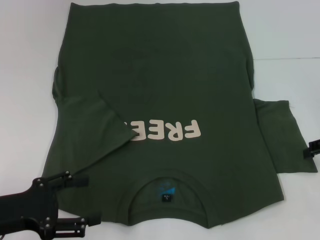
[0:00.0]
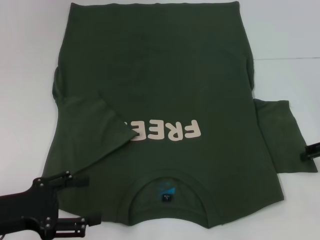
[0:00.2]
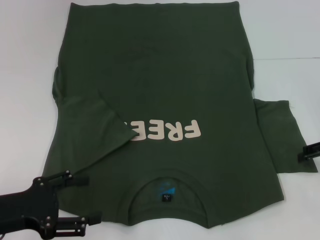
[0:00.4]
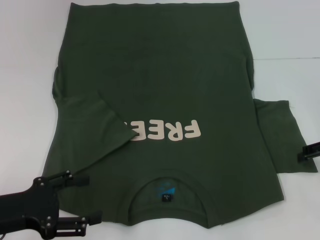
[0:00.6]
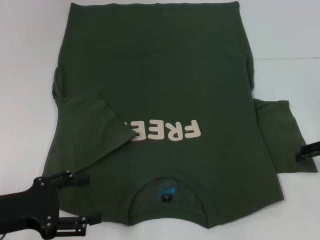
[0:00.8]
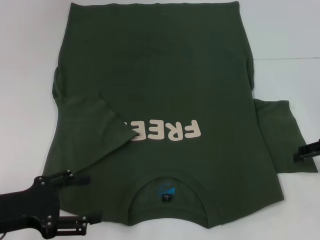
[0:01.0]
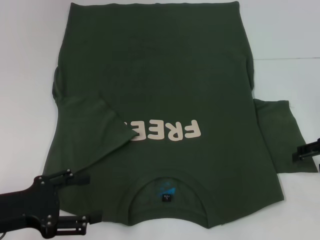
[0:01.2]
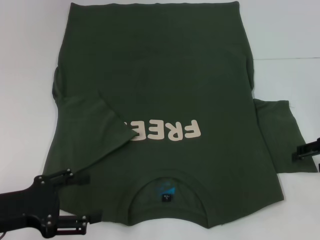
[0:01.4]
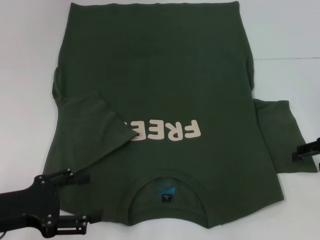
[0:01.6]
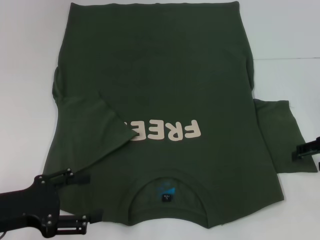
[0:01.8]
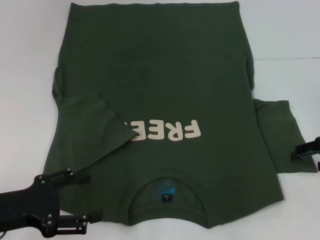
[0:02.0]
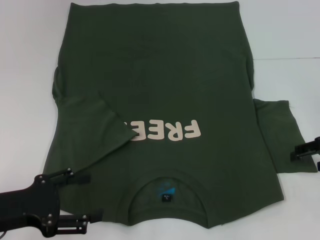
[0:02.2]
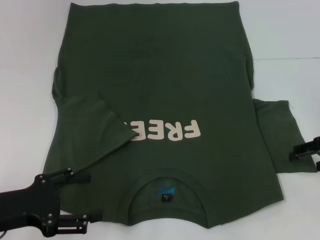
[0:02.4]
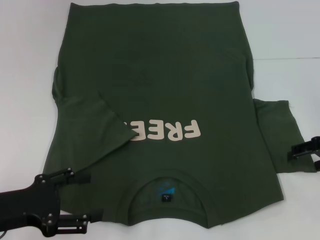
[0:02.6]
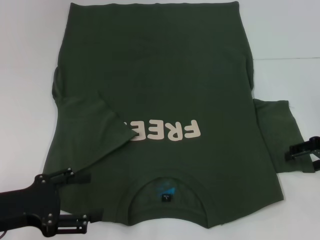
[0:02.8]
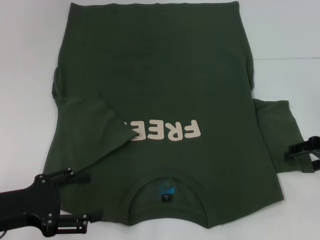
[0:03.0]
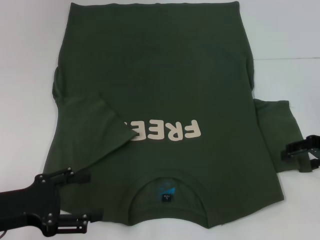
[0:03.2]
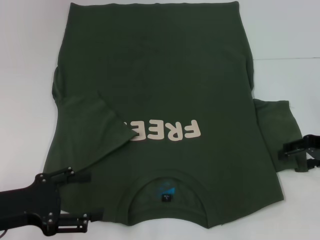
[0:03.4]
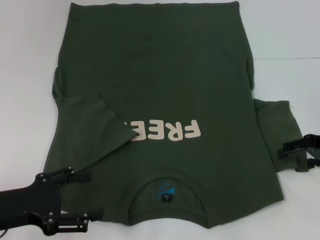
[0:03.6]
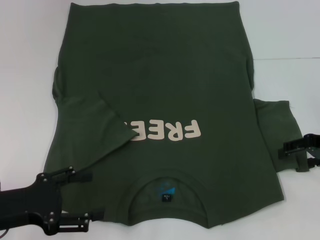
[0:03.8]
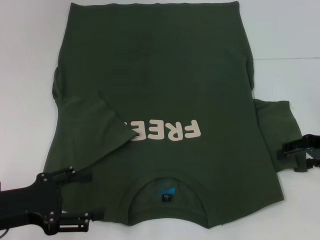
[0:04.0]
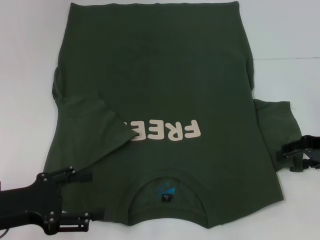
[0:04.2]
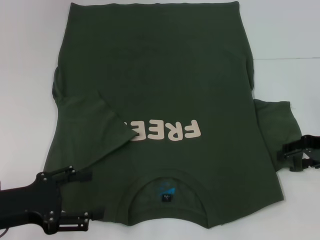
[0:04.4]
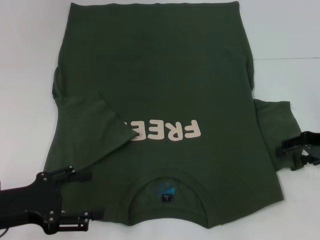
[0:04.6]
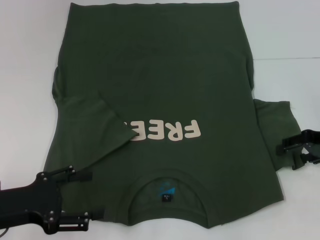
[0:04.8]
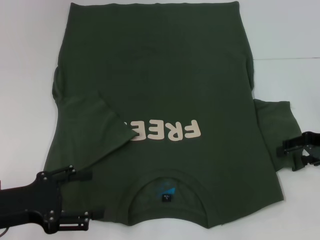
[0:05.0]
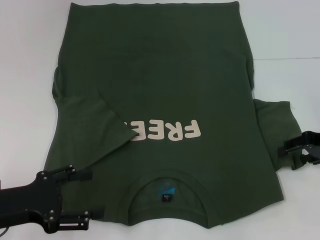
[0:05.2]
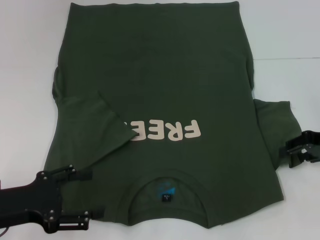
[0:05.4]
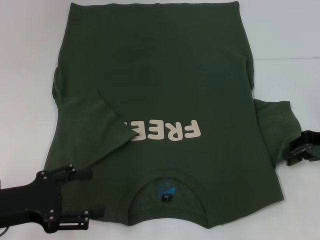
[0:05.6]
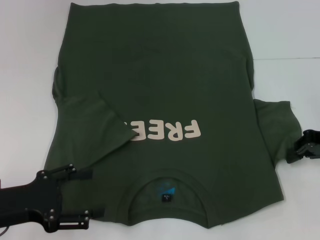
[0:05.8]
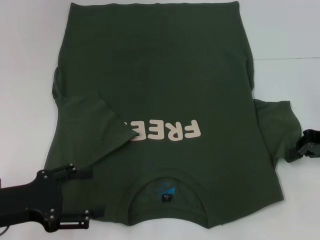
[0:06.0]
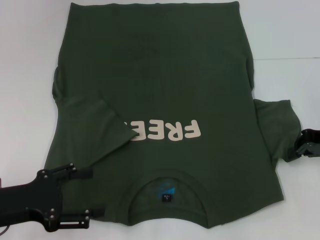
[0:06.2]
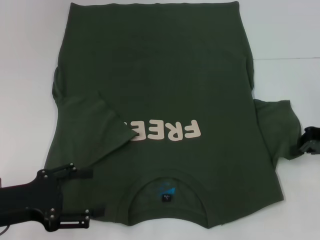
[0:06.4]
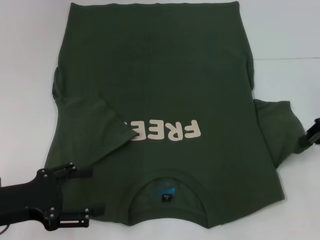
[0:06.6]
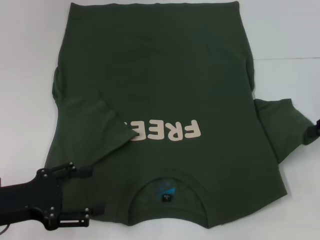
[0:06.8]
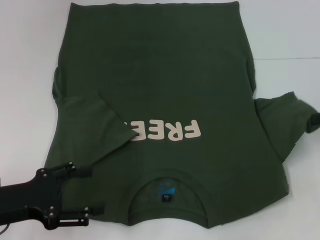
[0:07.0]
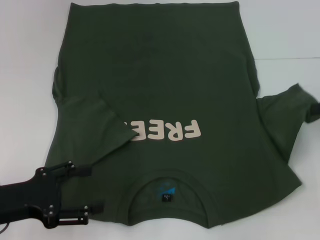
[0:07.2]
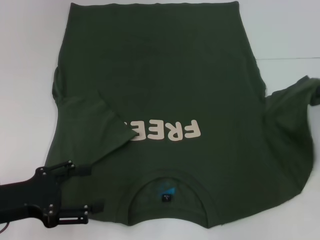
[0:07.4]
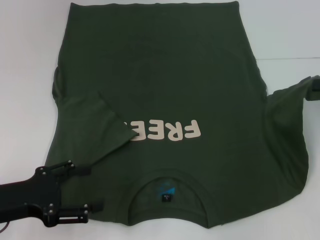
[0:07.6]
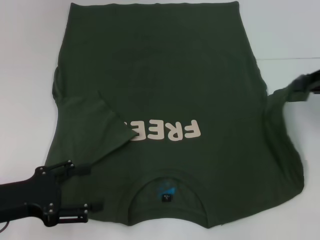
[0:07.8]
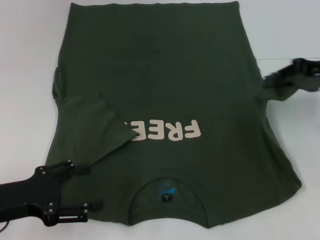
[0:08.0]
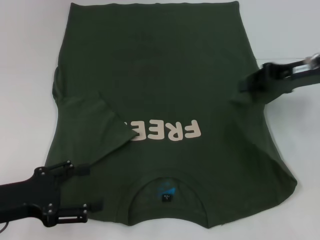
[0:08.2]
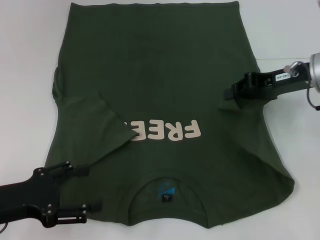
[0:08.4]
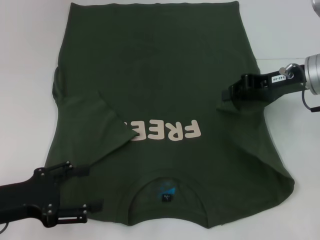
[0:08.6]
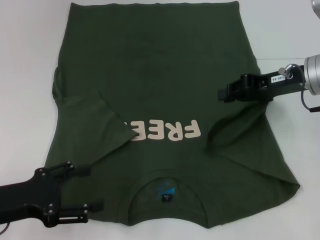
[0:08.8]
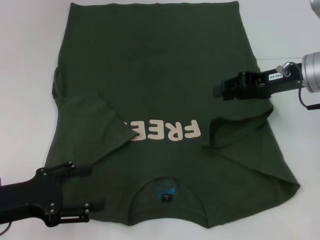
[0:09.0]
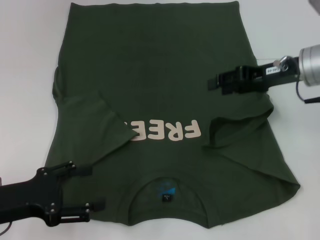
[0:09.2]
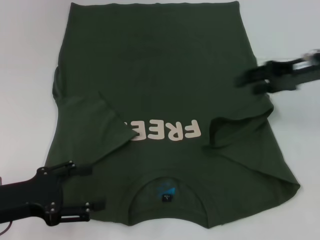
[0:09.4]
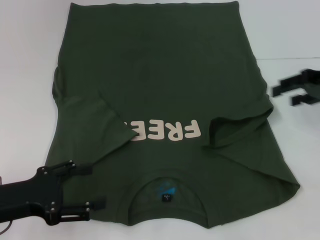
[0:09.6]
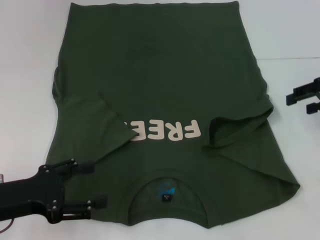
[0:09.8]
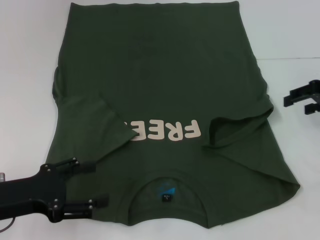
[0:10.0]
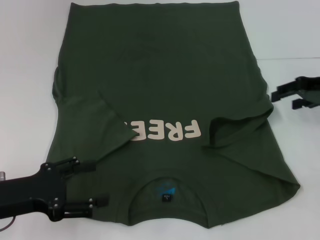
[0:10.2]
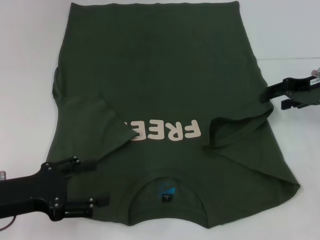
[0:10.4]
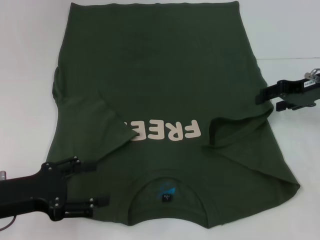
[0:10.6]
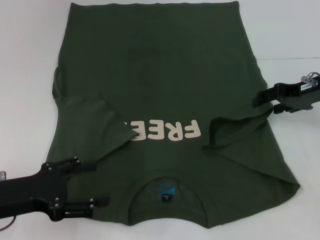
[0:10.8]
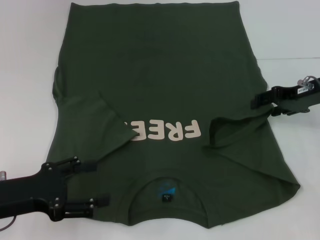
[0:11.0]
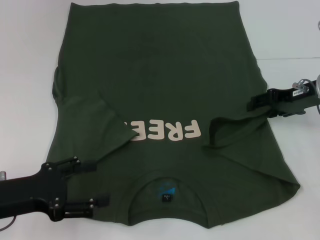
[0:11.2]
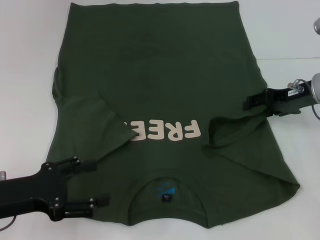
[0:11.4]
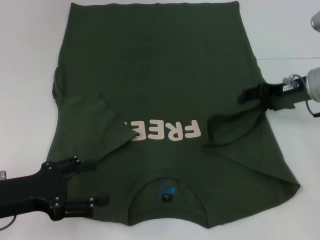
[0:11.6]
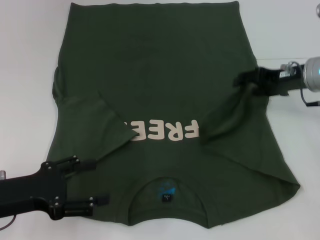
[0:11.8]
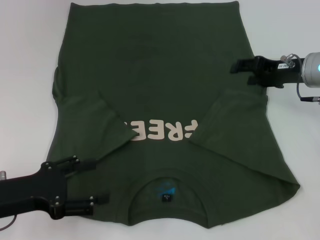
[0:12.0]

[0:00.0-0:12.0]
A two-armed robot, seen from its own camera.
Step, 0:00.0 to 0:09.2: Fold the bottom right sleeve with your right hand.
0:00.0 to 0:01.6: There are only small adjustments of the grippers.
0:01.6 to 0:03.0: The two grippers keep their place.
0:03.0 to 0:04.4: The two grippers keep their place.
0:04.4 to 0:06.0: The right gripper closes up.
0:06.0 to 0:07.6: The right gripper heads upward, covering some 10 cm.
0:07.6 to 0:09.0: The right gripper shifts some 15 cm to the left.
0:09.0 to 0:10.4: The right gripper heads to the right, covering approximately 5 cm, and opens its fingers.
0:10.4 to 0:12.0: The grippers move only a little.

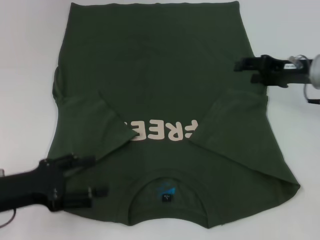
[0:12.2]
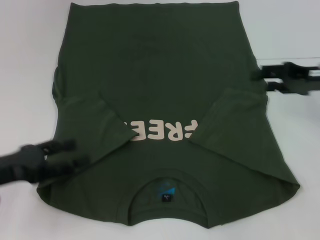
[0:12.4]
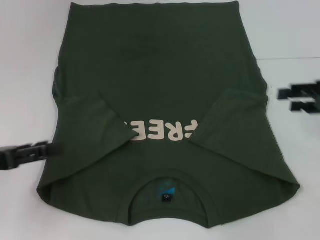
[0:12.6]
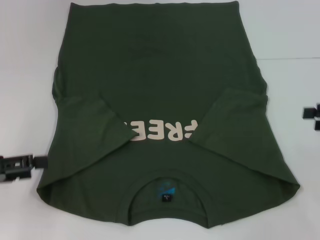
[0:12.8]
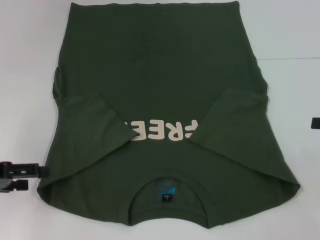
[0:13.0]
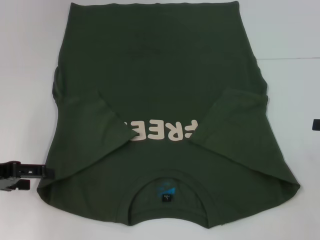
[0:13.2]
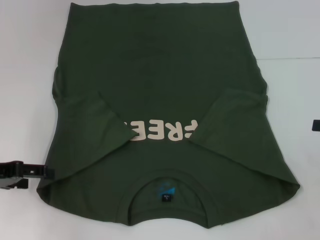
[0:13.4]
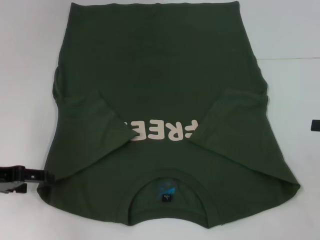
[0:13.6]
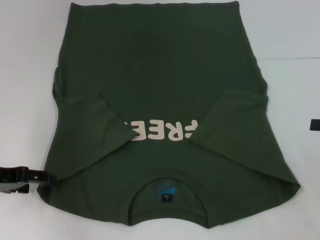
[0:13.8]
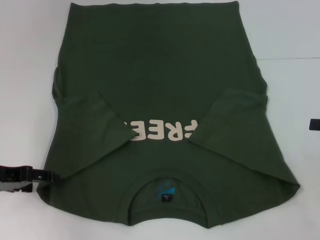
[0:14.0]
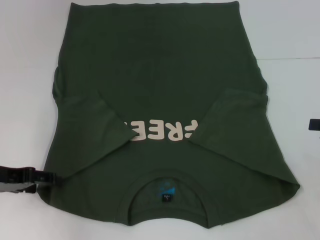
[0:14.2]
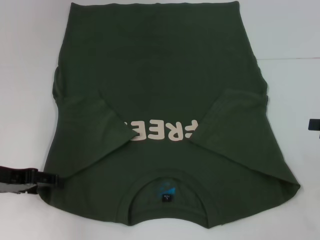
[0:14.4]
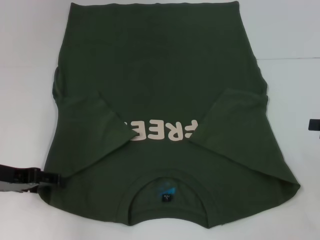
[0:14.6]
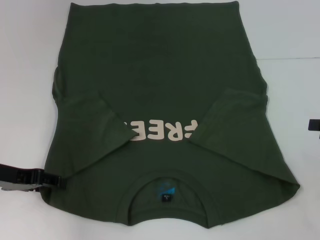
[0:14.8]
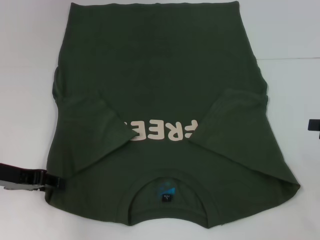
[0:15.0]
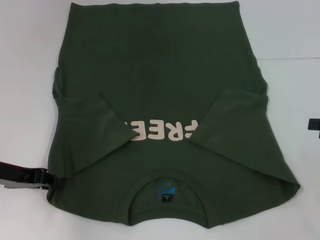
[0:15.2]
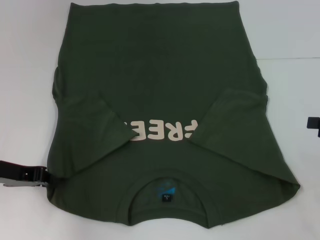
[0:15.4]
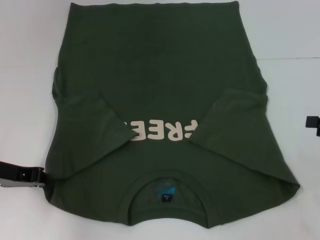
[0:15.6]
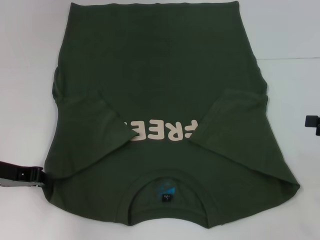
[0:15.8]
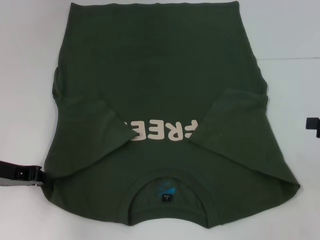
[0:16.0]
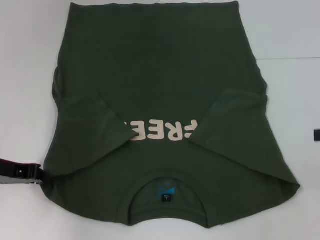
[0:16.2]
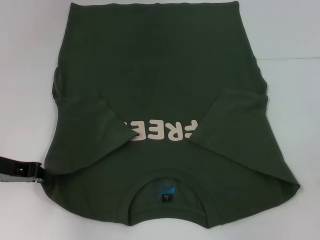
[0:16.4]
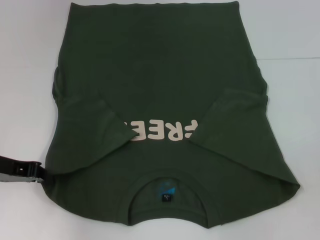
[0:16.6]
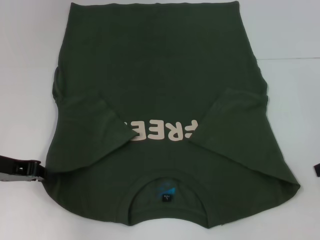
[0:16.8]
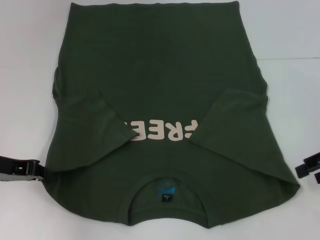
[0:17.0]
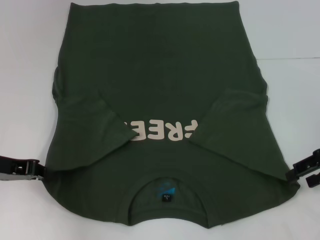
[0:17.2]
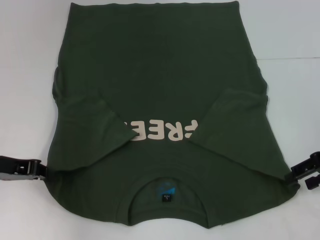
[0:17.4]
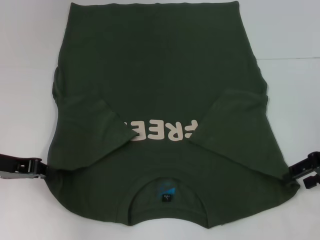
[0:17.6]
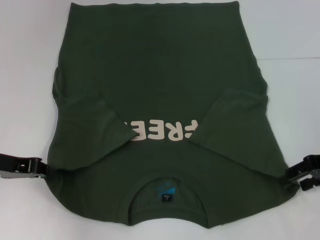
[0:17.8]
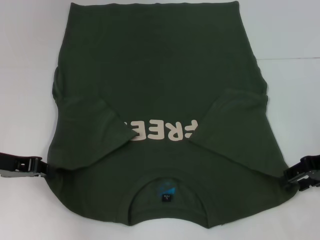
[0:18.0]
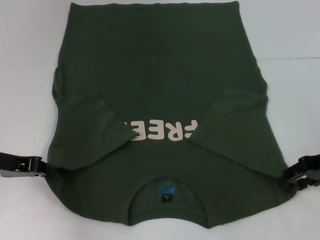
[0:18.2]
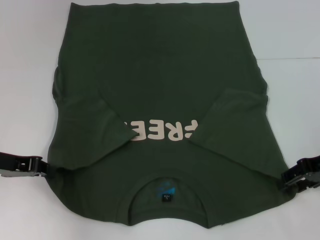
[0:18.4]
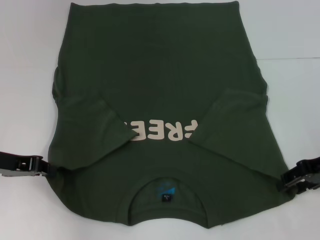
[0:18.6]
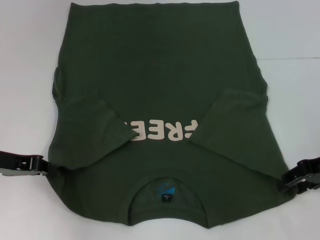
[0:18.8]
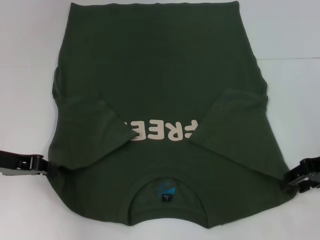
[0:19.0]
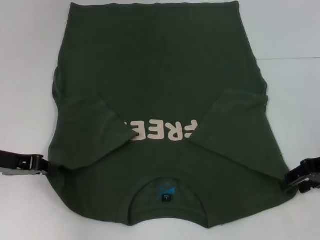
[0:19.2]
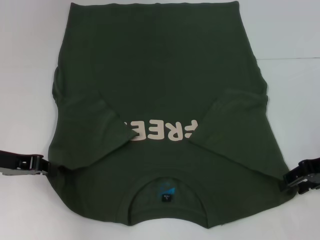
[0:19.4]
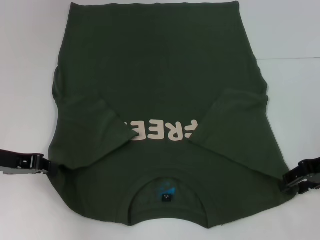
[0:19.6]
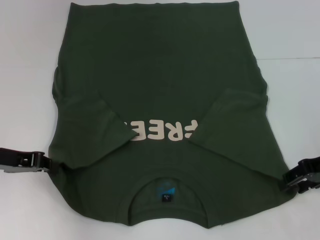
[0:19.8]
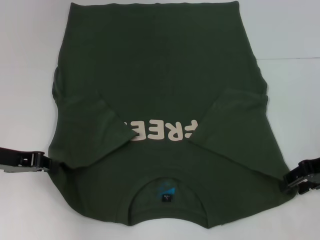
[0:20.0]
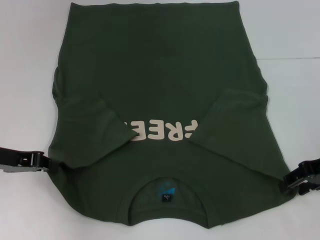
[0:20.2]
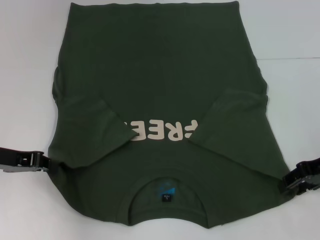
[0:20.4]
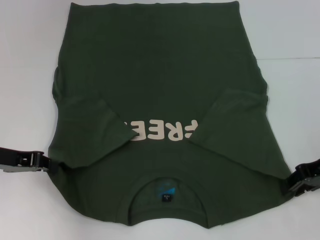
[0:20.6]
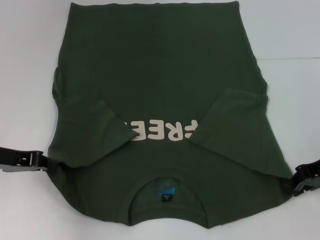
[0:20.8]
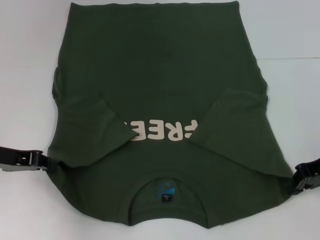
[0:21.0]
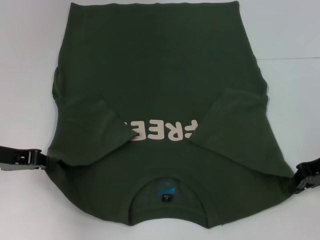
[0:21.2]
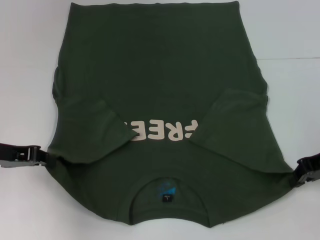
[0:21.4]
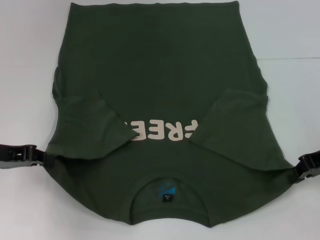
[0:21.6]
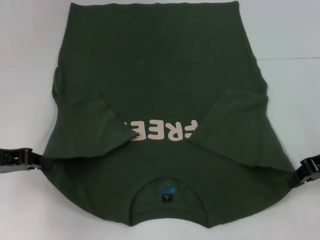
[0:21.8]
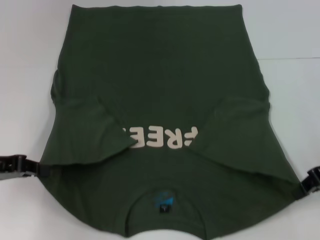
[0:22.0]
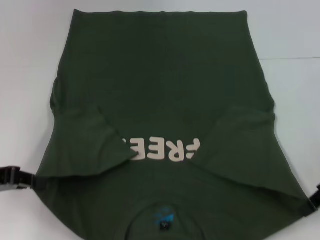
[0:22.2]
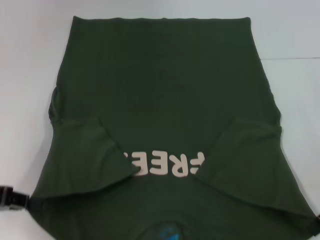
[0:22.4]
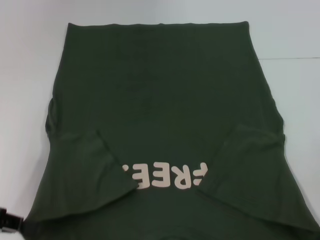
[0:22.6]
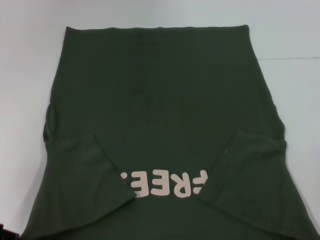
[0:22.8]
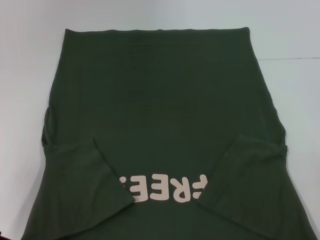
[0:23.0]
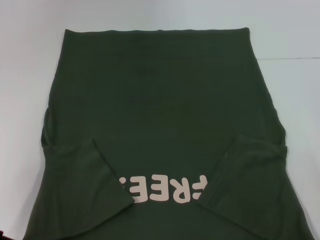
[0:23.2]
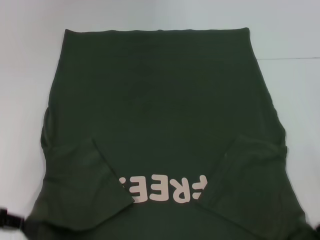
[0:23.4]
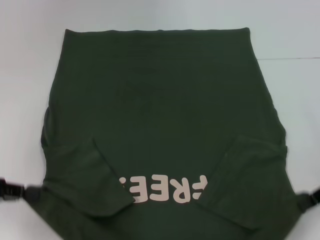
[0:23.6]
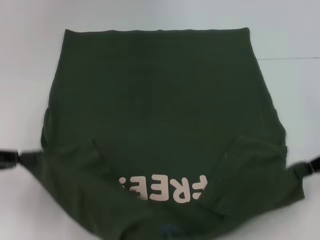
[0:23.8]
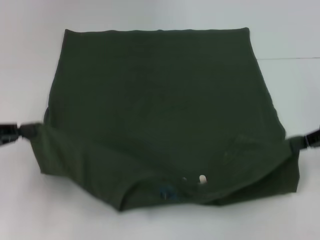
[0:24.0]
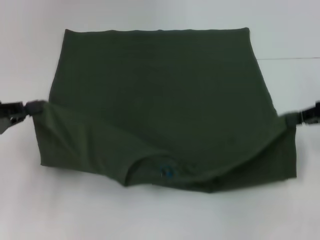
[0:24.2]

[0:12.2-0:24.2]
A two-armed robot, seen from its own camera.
Step, 0:12.2 to 0:16.4: Grab the bottom left corner with your left hand.
Step, 0:16.6 to 0:21.0: Grab the bottom right corner with your right hand.
0:12.2 to 0:13.8: The left gripper heads forward, covering roughly 5 cm, while the right gripper moves backward and to the right, some 15 cm.
0:13.8 to 0:15.2: The left gripper closes.
0:15.2 to 0:16.6: The left gripper closes.
0:16.6 to 0:18.2: The right gripper moves to the left and downward, approximately 10 cm.
0:18.2 to 0:19.8: Both grippers stay put.
0:19.8 to 0:21.2: The right gripper closes its fingers.
0:21.2 to 0:22.6: The right gripper shifts by about 5 cm, while the left gripper is displaced backward by some 5 cm.
0:22.6 to 0:24.2: The right gripper heads forward, covering approximately 5 cm.
